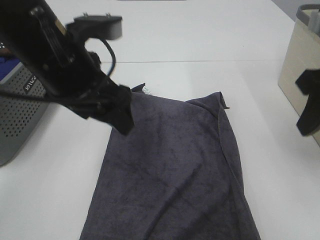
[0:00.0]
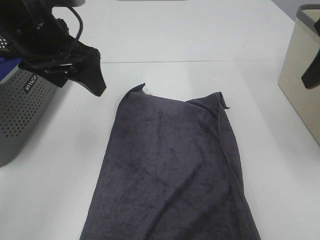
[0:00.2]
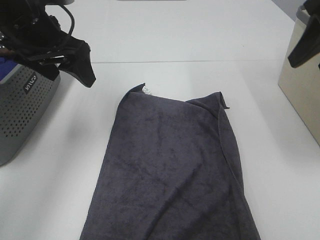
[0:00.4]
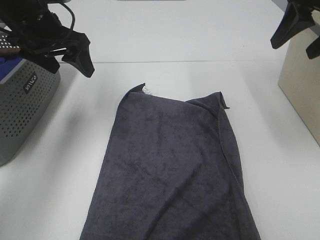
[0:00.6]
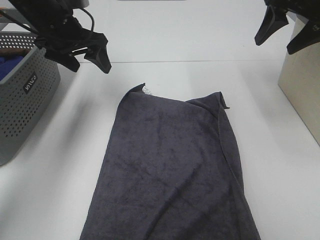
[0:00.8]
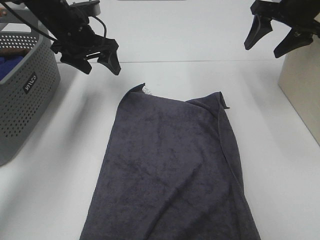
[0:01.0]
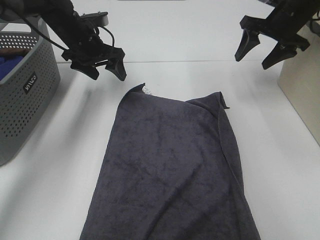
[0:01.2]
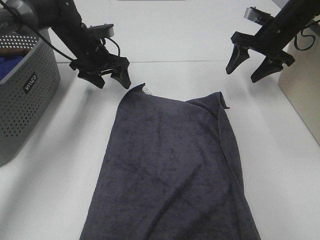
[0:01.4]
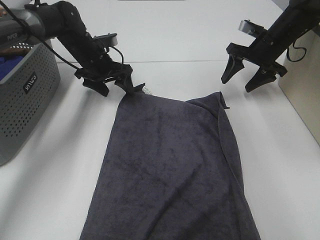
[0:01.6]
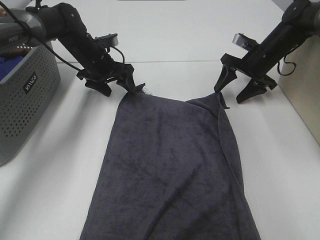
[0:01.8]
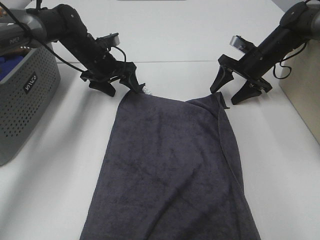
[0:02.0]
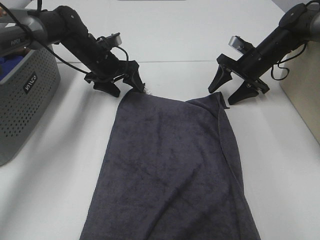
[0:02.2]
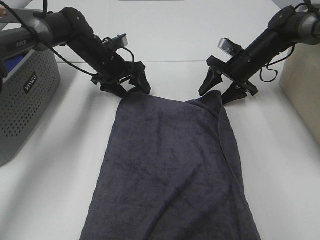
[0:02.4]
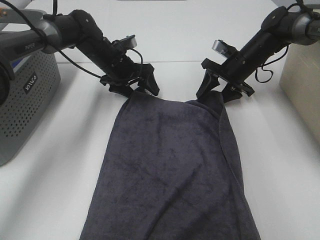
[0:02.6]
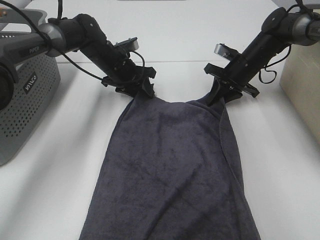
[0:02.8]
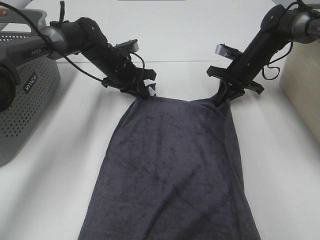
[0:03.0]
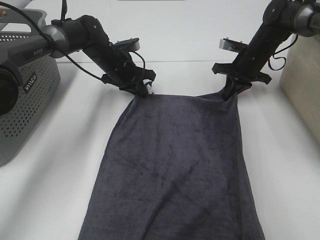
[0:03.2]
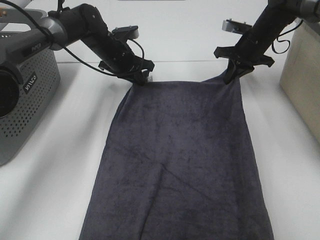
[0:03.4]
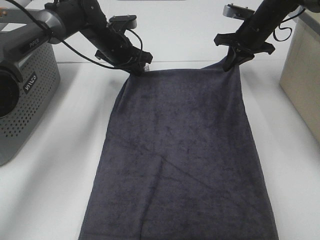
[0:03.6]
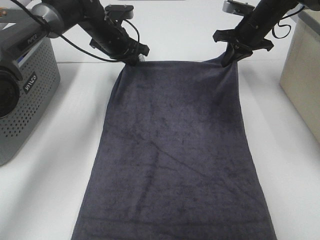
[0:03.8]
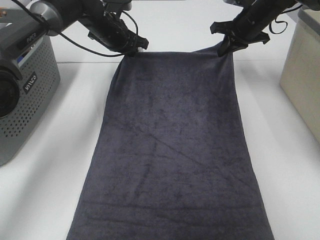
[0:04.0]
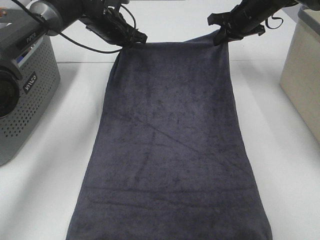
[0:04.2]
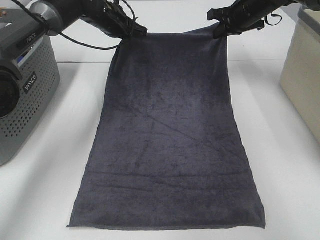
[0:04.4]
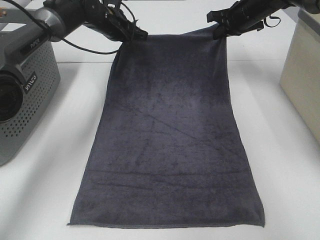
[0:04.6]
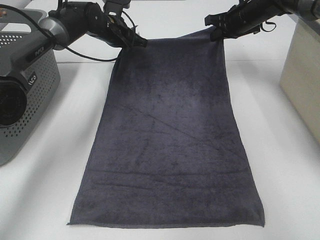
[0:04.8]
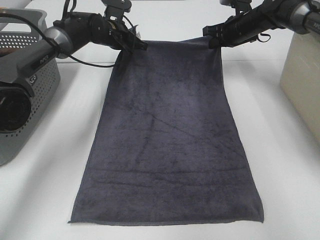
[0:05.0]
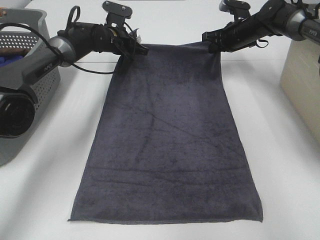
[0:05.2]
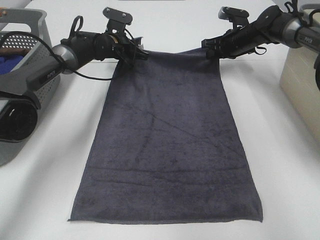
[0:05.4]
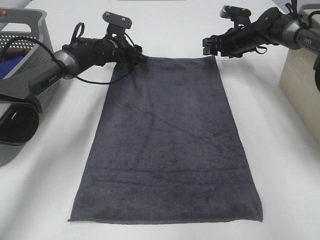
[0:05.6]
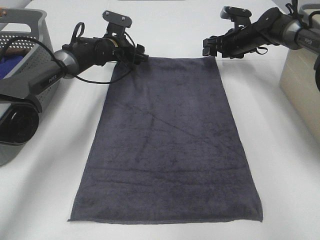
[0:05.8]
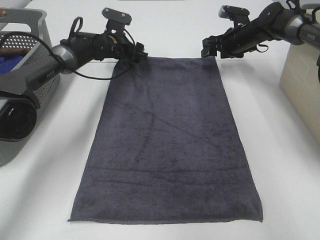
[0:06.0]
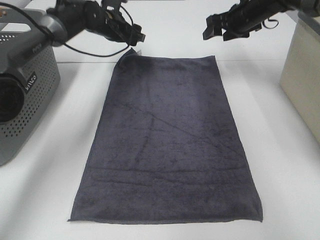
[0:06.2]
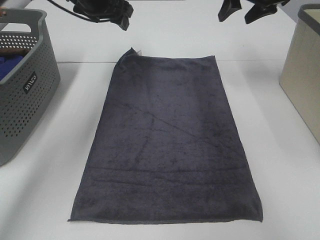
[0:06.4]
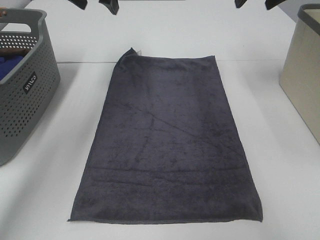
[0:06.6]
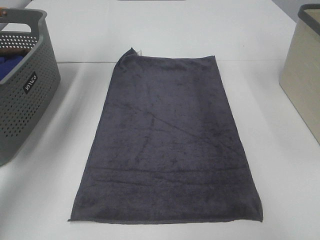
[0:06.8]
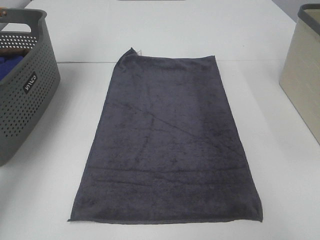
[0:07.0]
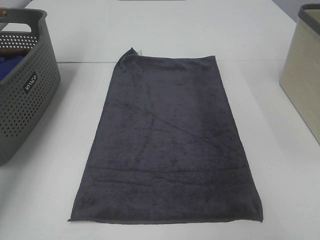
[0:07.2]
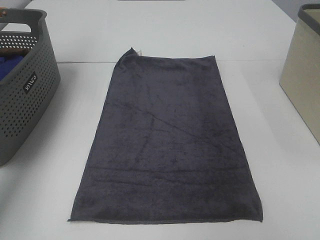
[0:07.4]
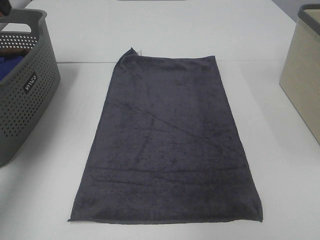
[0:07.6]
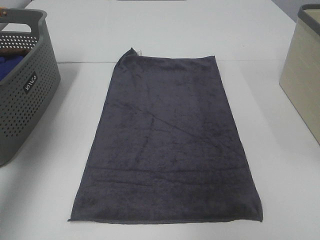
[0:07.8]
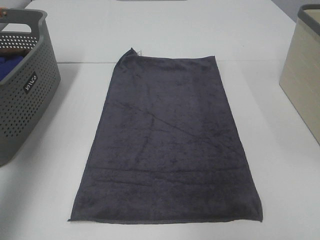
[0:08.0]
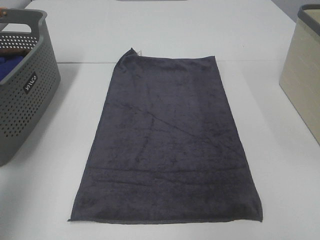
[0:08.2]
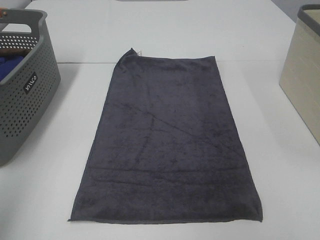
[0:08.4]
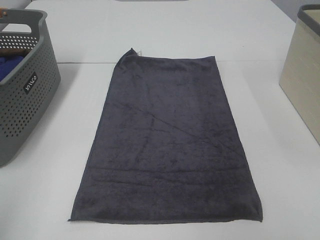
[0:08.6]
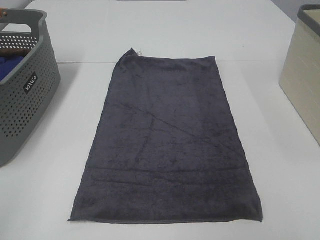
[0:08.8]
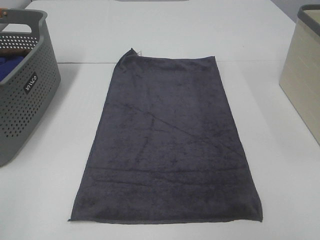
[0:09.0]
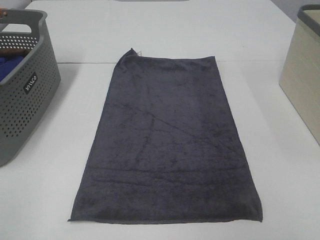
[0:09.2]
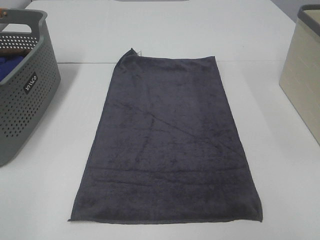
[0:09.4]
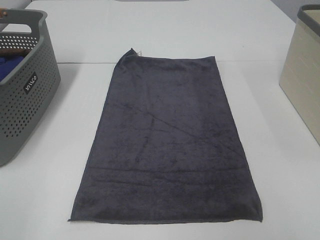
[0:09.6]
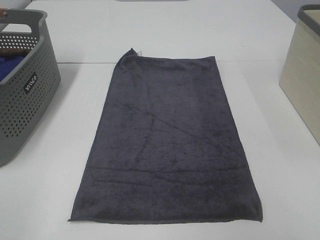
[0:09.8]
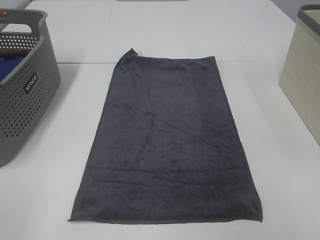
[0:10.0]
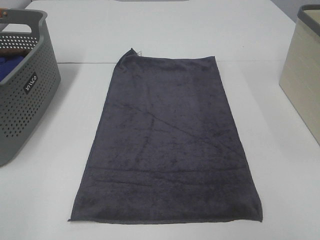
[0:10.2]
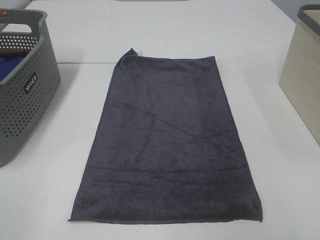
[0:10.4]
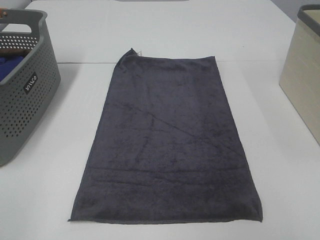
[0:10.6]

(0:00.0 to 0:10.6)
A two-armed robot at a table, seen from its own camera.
Task of the whole recording: Remove the towel and place it.
0:00.0 - 0:01.6: Both grippers travel together forward and downward, about 30 cm.
0:01.6 - 0:03.0: The right gripper ends up about 5 cm from where it was, and closes its fingers. The left gripper changes place by roughly 5 cm, and closes.
0:03.0 - 0:04.6: The two grippers go about 10 cm upward and forward.
0:04.6 - 0:06.0: Both grippers move downward, about 5 cm. The left gripper opens up; the right gripper opens up.
0:06.0 - 0:07.6: The left gripper travels upward, backward and to the left by approximately 35 cm. Meanwhile the right gripper travels backward and upward by approximately 40 cm.
0:07.6 - 0:09.0: The left gripper shifts some 40 cm backward.

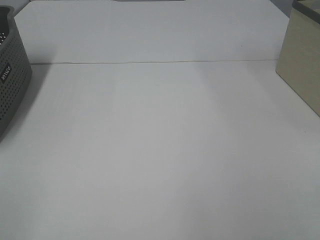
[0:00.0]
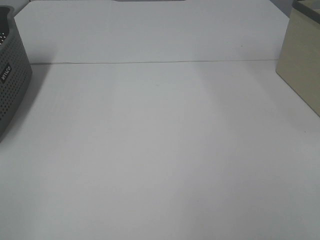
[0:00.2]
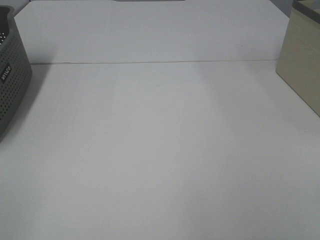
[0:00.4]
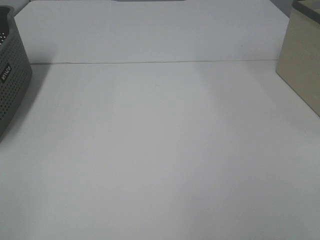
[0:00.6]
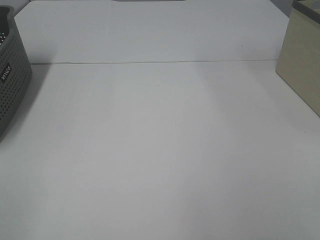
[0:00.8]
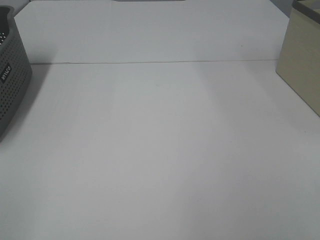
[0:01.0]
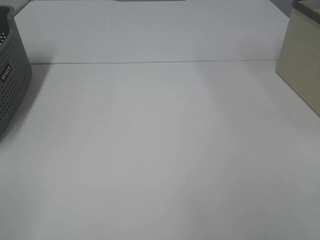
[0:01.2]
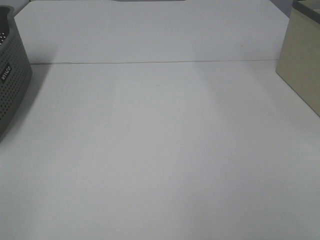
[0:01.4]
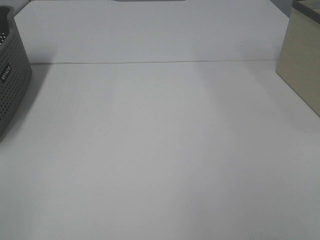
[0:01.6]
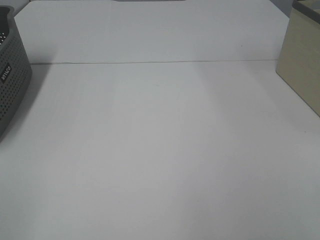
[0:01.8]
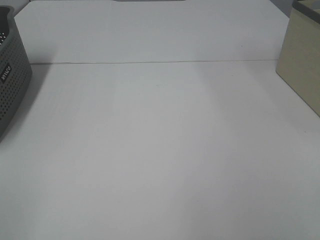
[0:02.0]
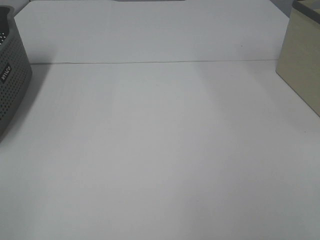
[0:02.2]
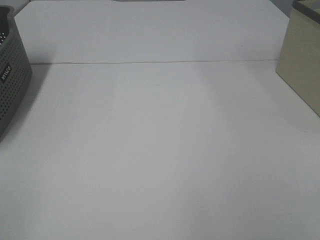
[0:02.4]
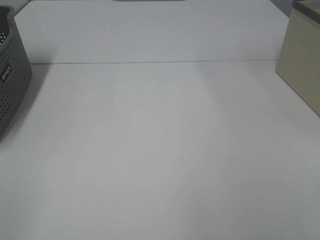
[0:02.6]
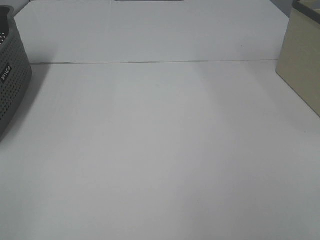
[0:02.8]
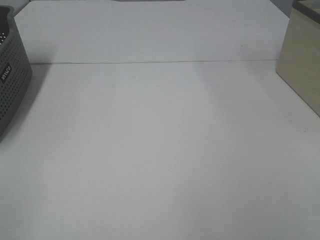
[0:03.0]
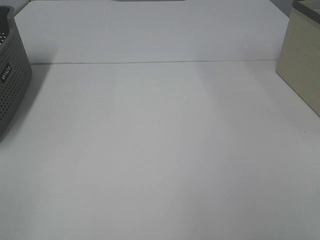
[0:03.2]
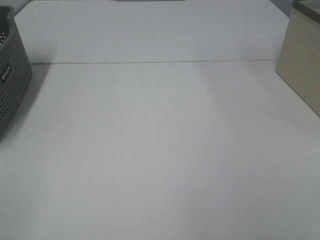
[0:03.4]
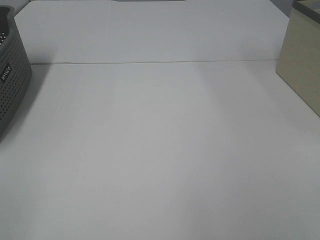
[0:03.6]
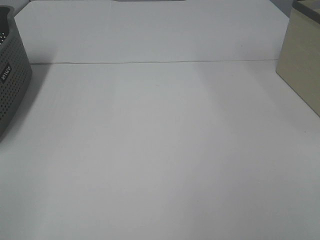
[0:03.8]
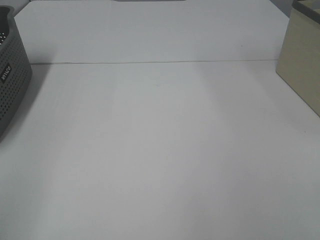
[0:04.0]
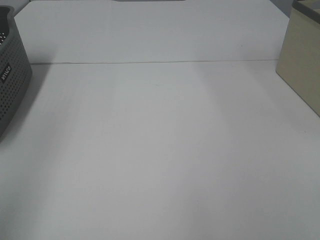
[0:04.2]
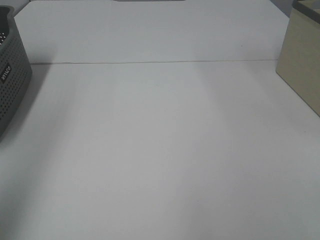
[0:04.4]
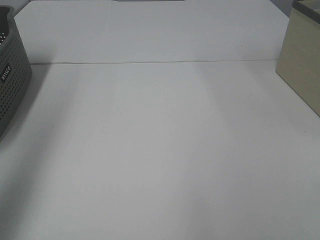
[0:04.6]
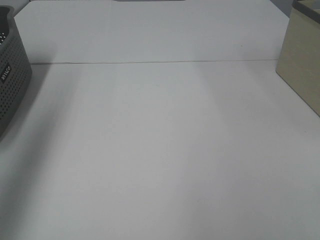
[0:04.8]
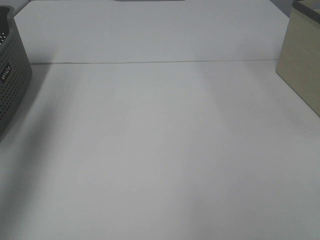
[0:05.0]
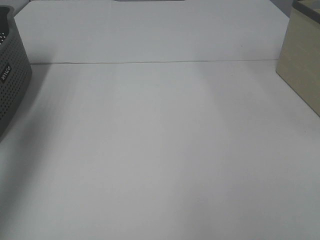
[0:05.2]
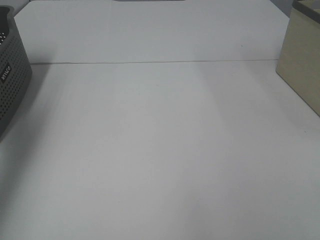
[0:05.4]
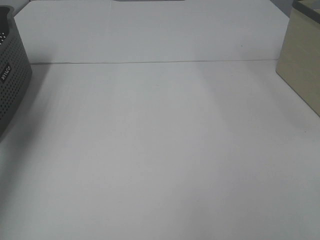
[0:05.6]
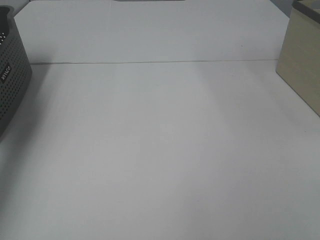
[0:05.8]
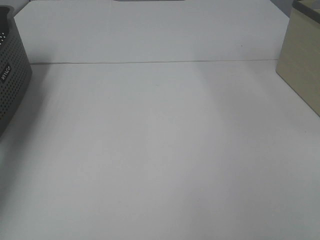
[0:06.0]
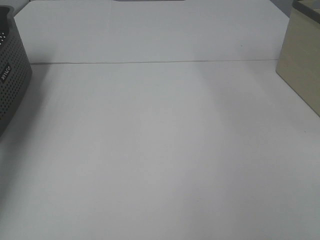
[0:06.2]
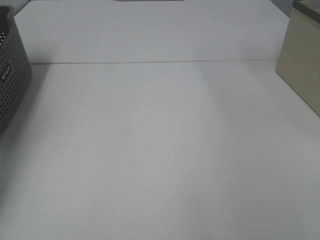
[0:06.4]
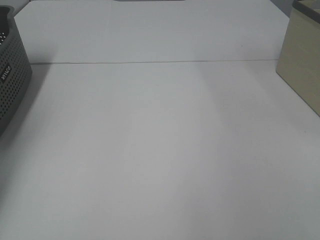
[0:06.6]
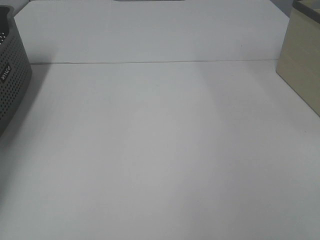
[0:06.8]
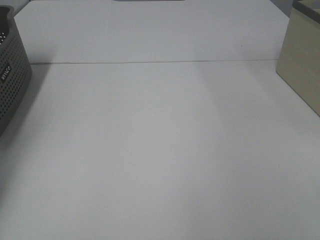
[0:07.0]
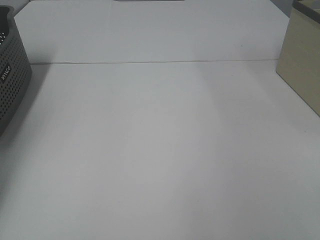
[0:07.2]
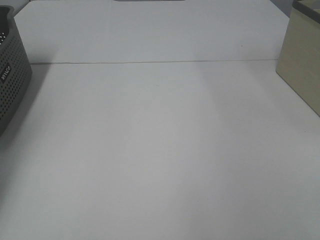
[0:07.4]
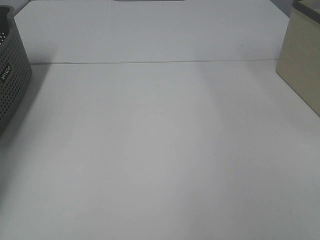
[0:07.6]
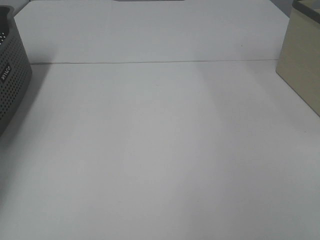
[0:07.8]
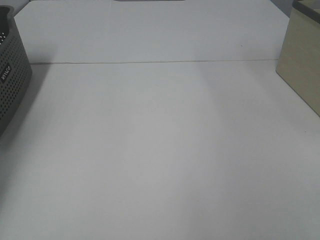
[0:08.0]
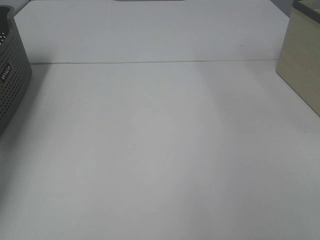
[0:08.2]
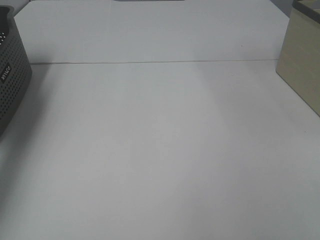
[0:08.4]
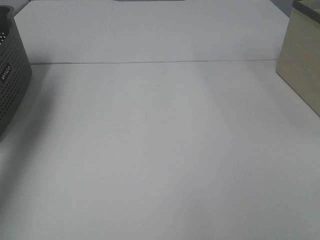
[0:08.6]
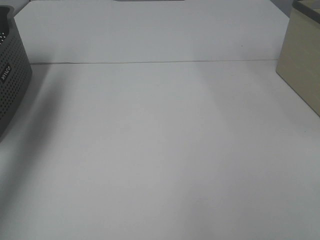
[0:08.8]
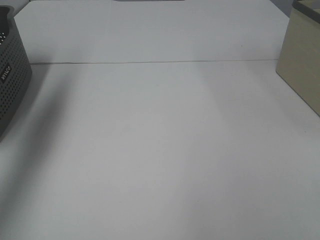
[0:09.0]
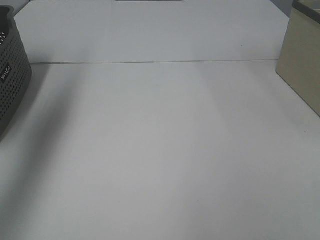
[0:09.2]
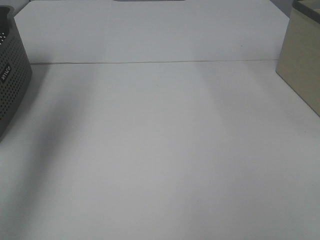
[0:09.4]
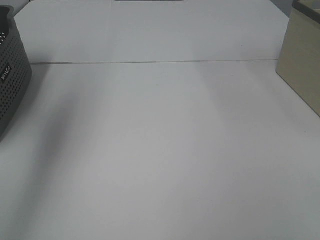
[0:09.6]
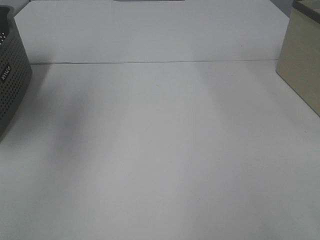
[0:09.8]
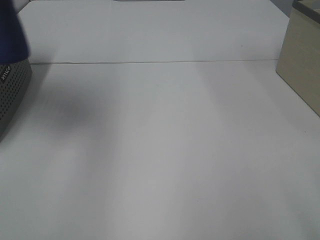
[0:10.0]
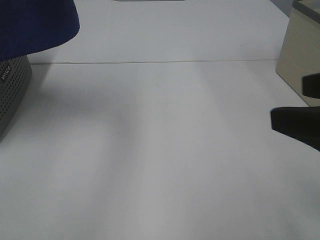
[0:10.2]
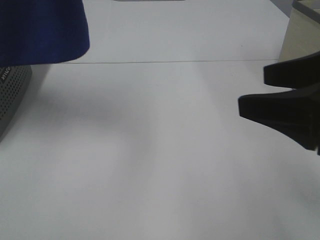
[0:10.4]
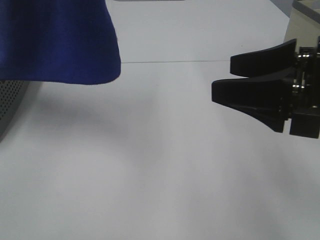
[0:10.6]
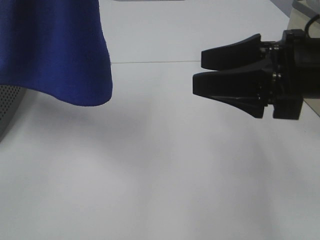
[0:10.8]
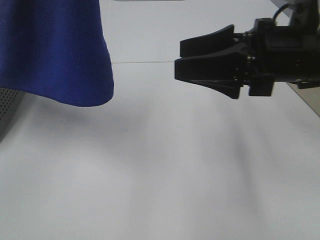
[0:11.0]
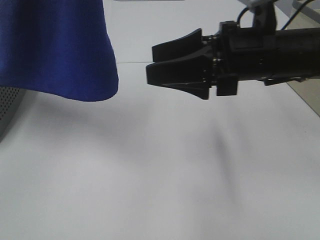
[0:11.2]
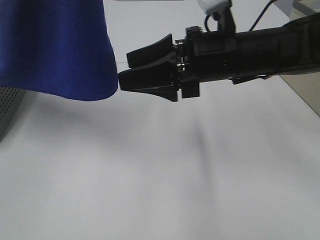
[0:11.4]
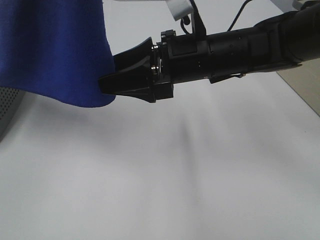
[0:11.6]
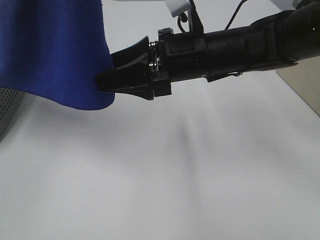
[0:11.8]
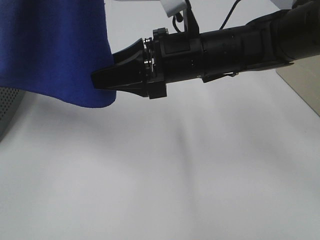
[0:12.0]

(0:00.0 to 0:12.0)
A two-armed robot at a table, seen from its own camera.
Task of the whole recording: Remove the towel and place it.
0:00.0 - 0:03.0: The two grippers keep their place.
0:03.0 - 0:04.4: The left gripper goes roughly 20 cm forward and upward.
0:04.4 - 0:06.0: The left gripper is displaced forward and downward by some 35 cm.
0:06.0 - 0:07.6: The left gripper changes place by approximately 5 cm, and closes.
0:07.6 - 0:09.0: The left gripper is displaced upward and to the right by roughly 25 cm.
0:09.0 - 0:10.4: The left gripper moves to the right, backward and upward, roughly 25 cm. Meanwhile the right gripper heads forward and to the left, covering approximately 15 cm.
0:10.4 - 0:12.0: The right gripper goes about 20 cm to the left and forward.
